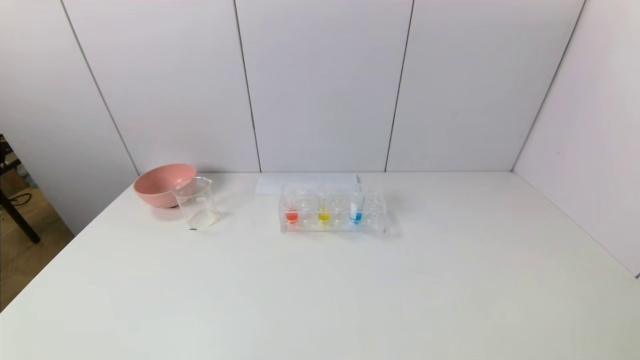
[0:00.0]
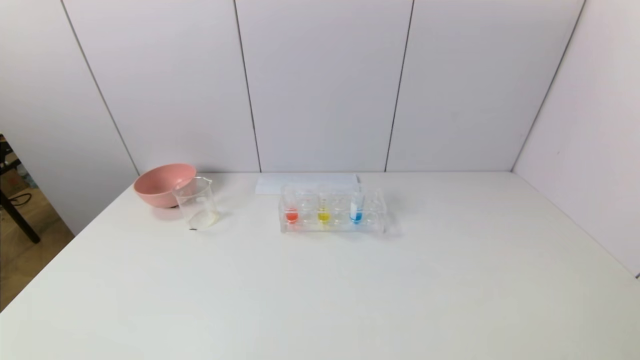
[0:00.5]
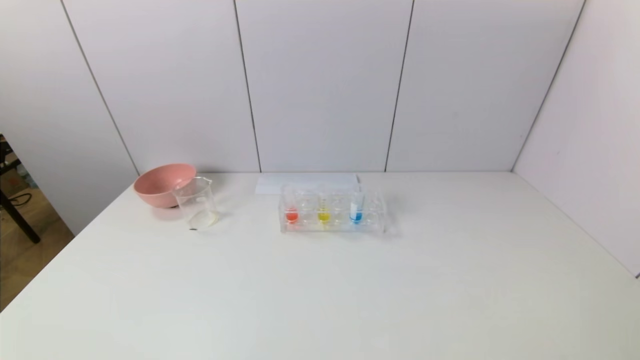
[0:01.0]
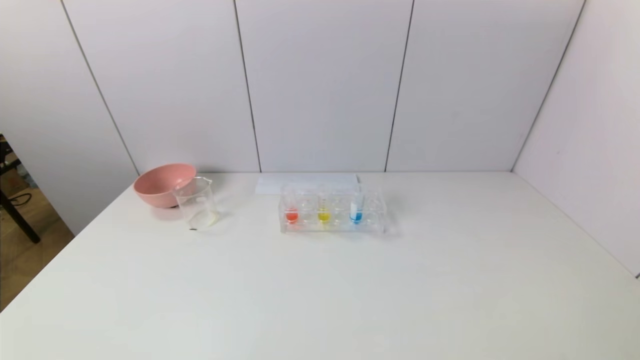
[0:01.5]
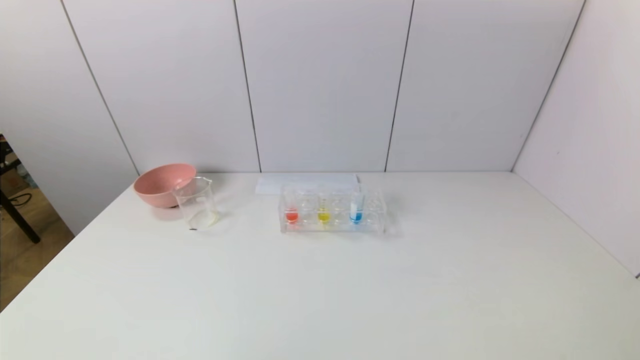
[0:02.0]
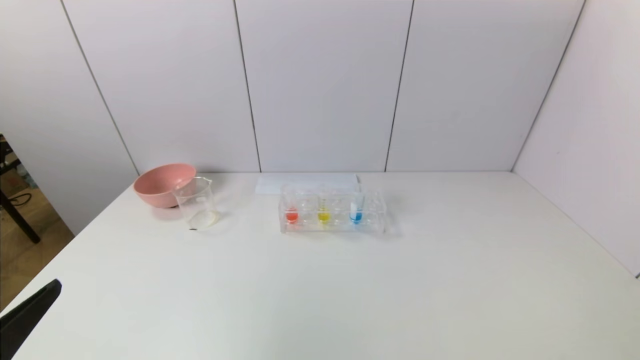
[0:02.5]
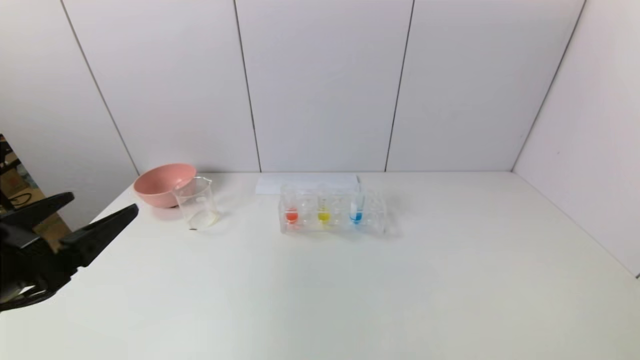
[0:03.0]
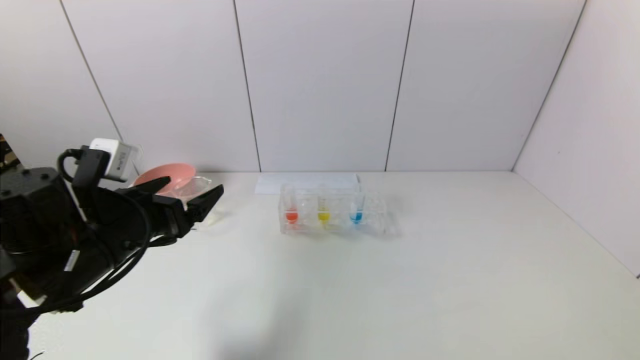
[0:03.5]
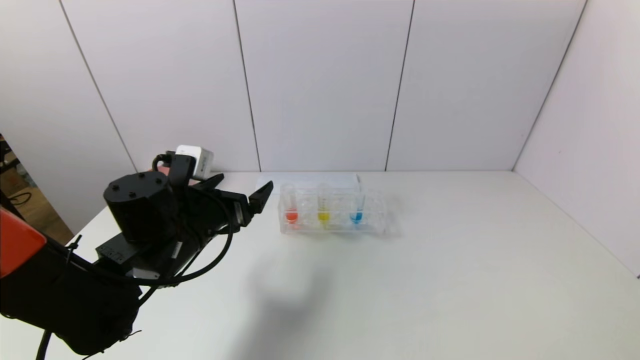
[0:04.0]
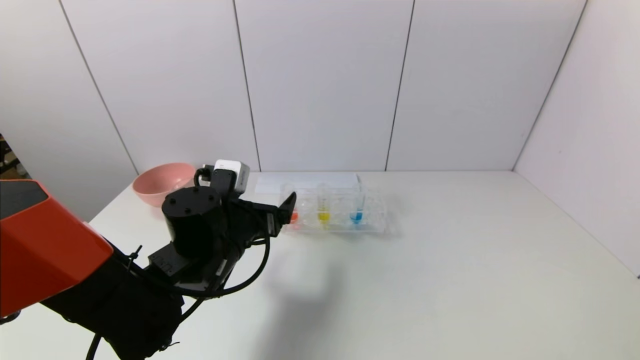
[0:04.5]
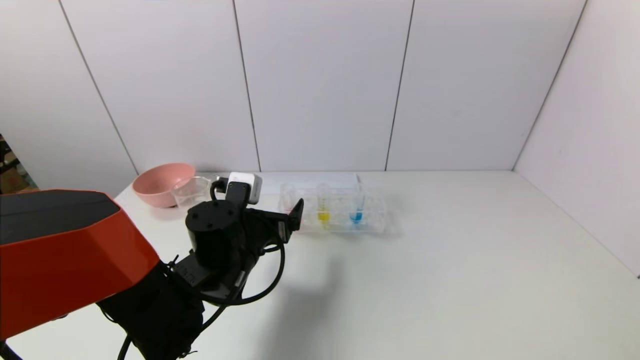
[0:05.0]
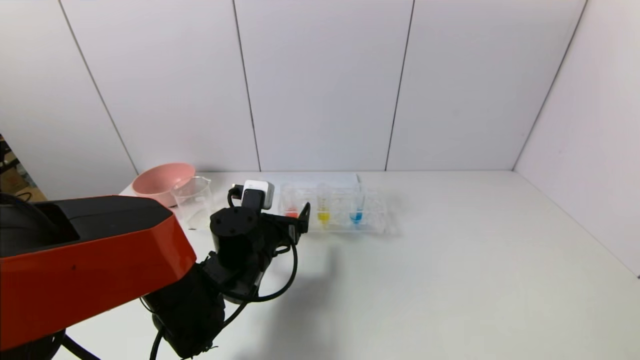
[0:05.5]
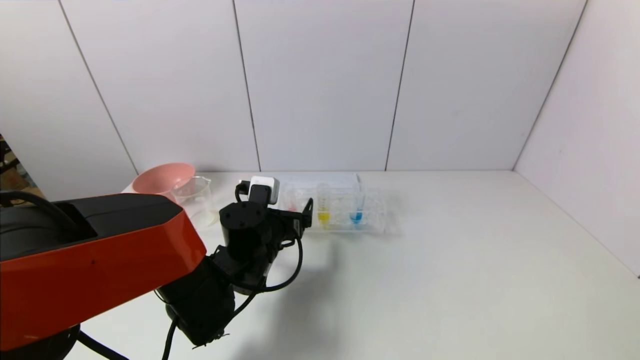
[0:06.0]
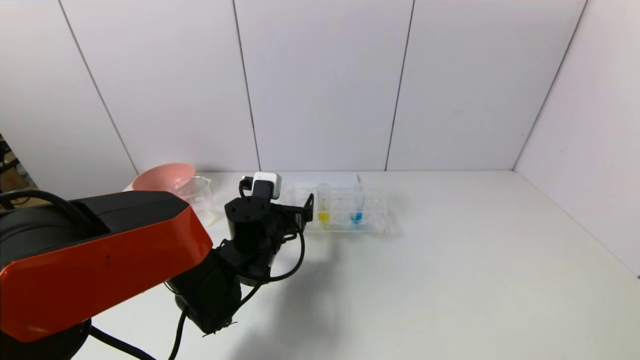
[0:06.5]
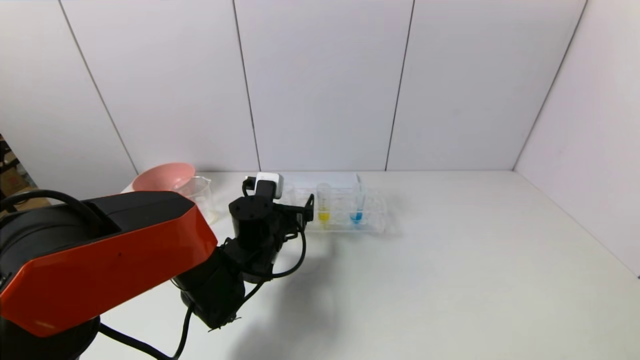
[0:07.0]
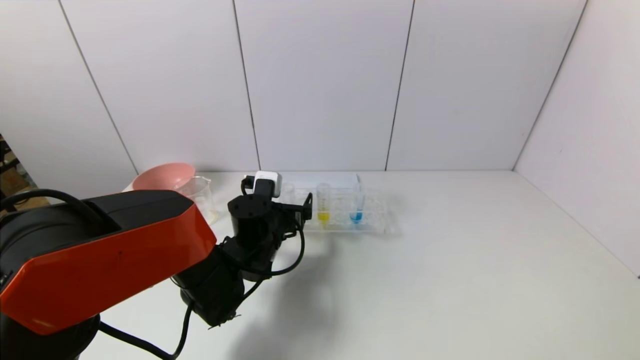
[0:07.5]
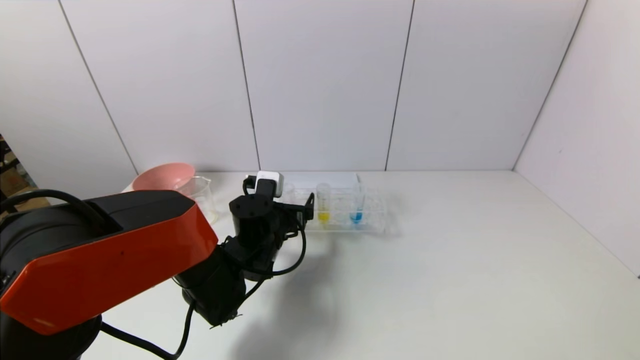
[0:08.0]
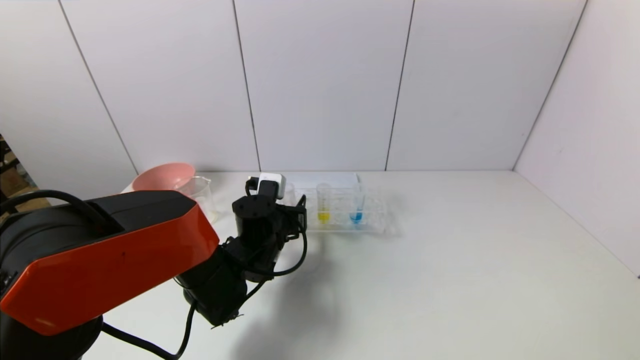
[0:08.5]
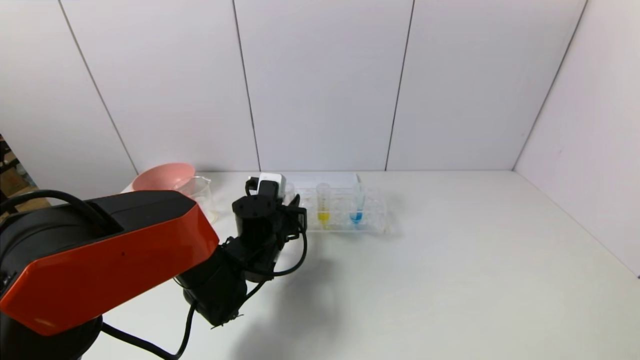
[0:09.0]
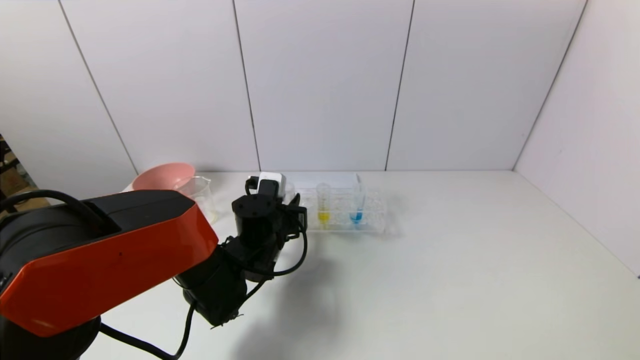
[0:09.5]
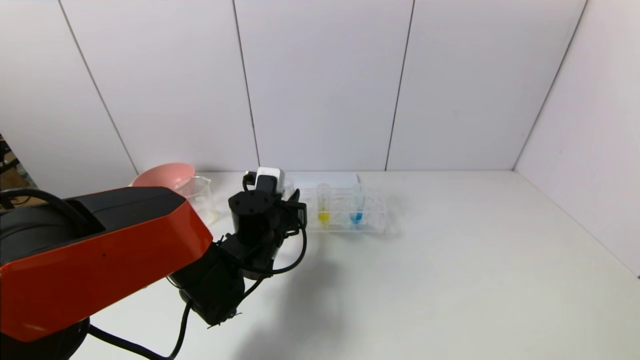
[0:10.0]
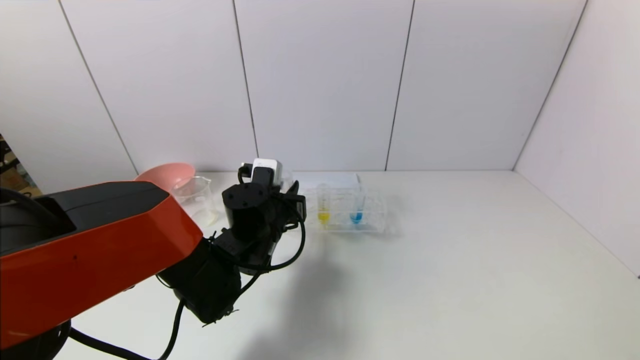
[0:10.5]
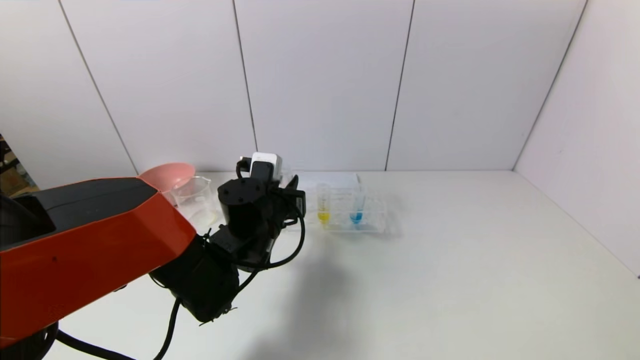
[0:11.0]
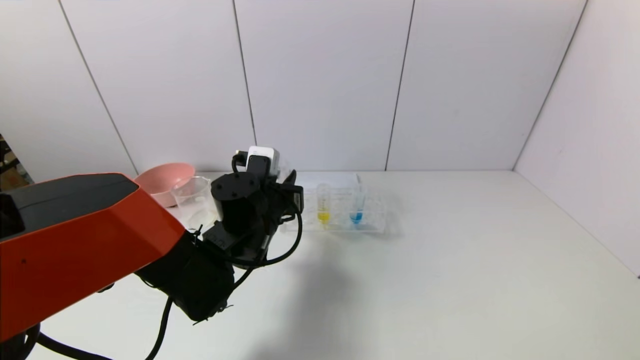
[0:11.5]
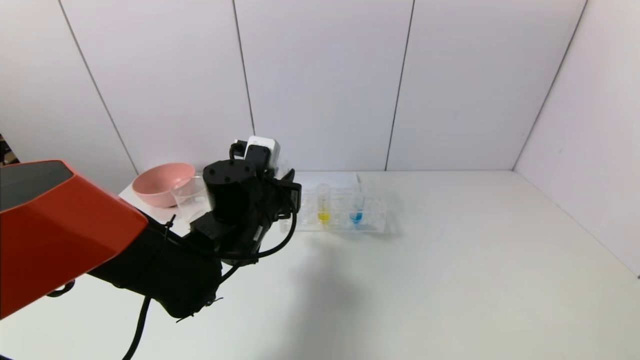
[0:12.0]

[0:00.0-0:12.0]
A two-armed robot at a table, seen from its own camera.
Task of the whole recording: pick up the test tube with yellow pigment and the test tube with red pigment by grippers and pour them into the beaker.
Step, 0:00.0 to 0:09.0: Grasp the red reagent with the left gripper.
0:02.0 to 0:04.0: The left gripper shifts approximately 30 cm forward and to the right.
0:04.0 to 0:06.0: The left gripper is displaced to the right and downward by some 10 cm.
0:06.0 to 0:08.0: The grippers make only small movements.
0:08.0 to 0:10.0: The left gripper closes up.
0:10.0 to 0:12.0: The left gripper moves upward, roughly 5 cm.

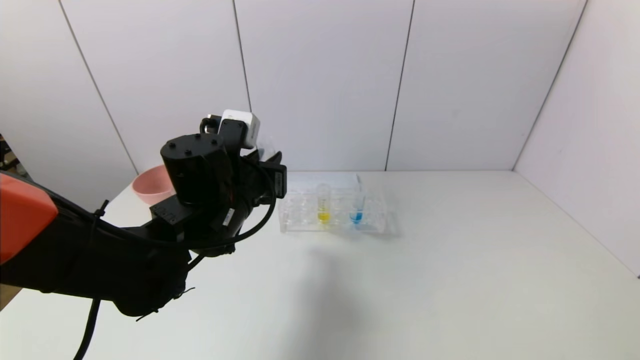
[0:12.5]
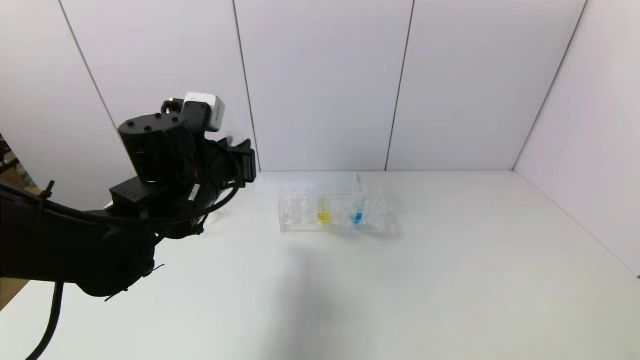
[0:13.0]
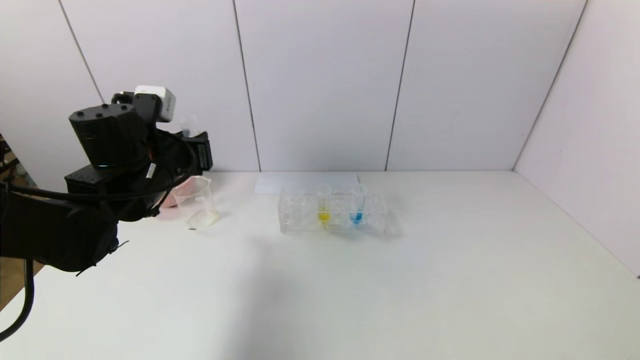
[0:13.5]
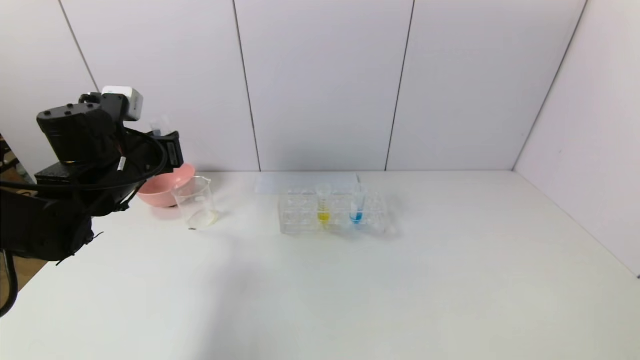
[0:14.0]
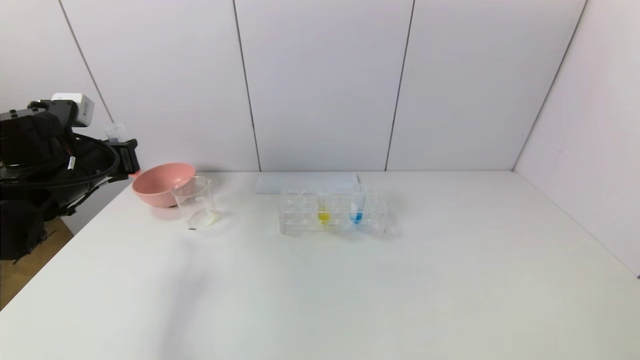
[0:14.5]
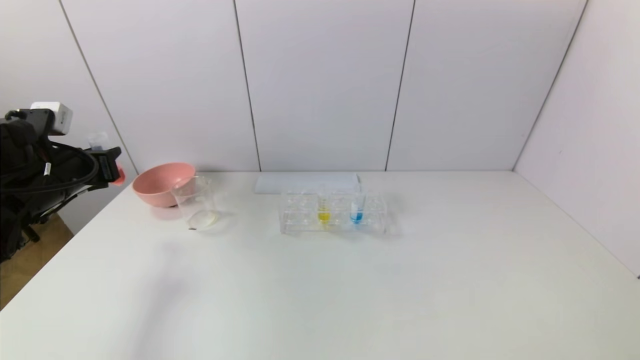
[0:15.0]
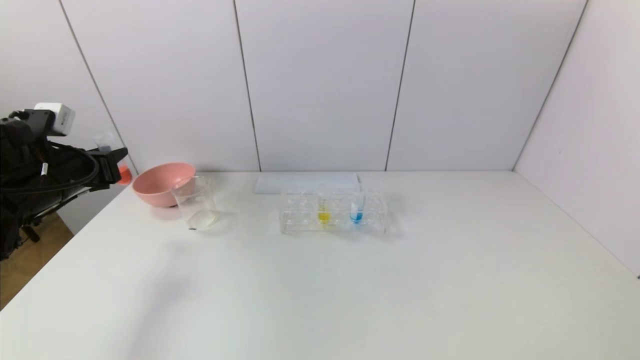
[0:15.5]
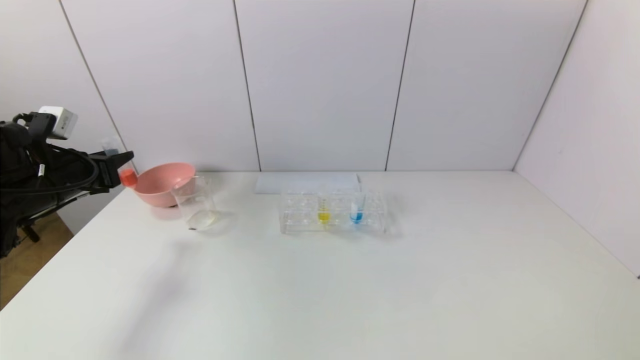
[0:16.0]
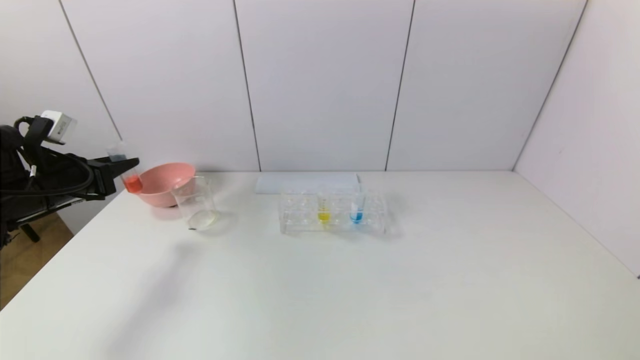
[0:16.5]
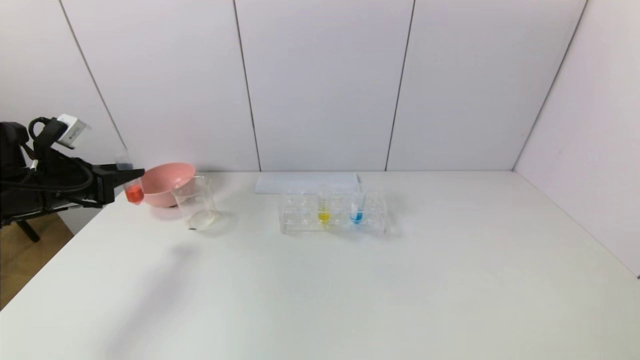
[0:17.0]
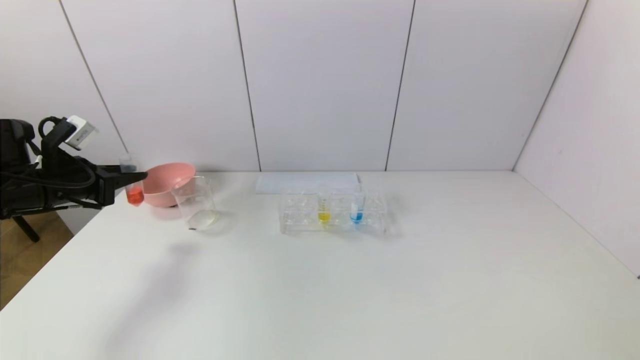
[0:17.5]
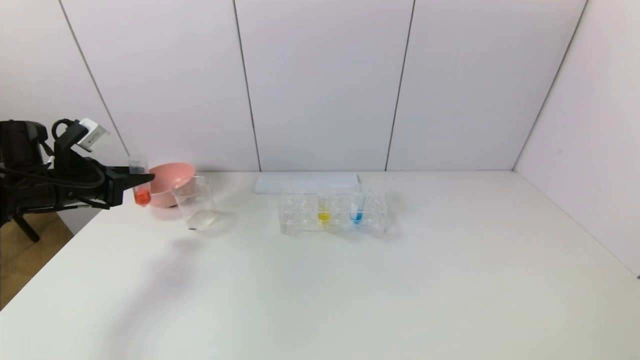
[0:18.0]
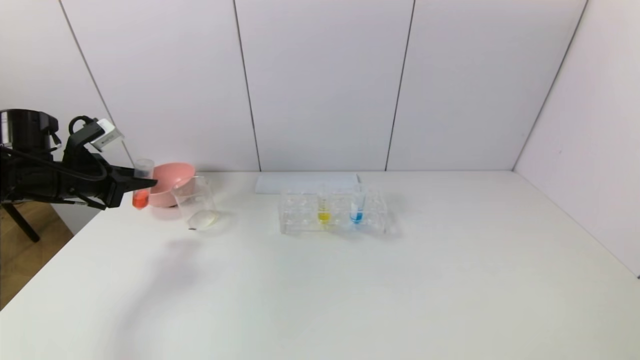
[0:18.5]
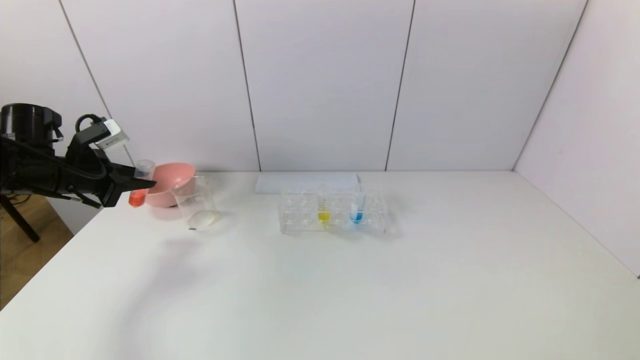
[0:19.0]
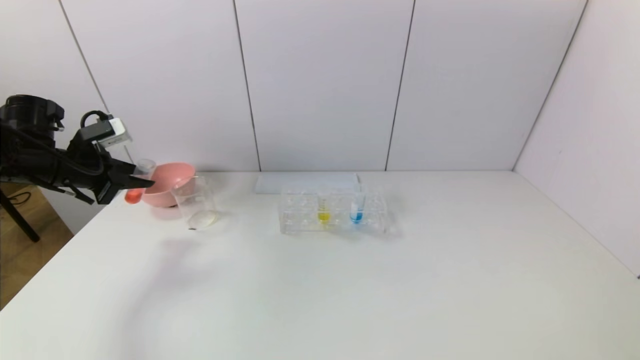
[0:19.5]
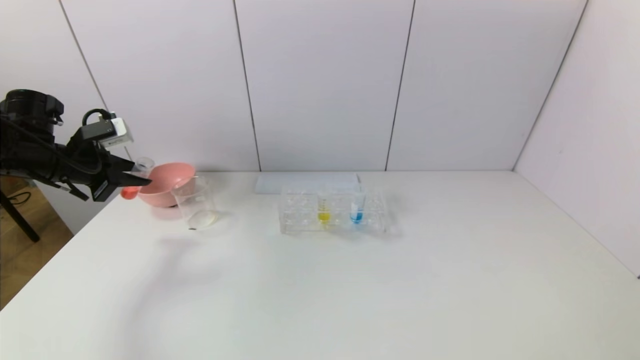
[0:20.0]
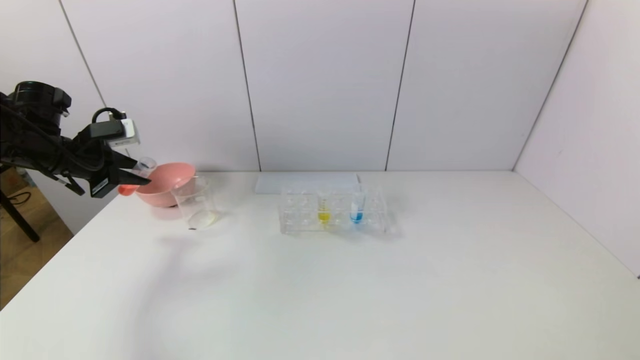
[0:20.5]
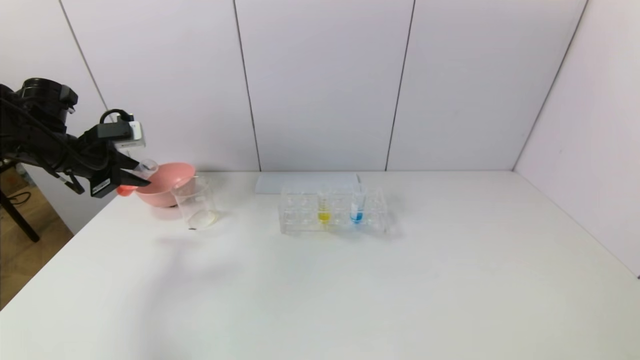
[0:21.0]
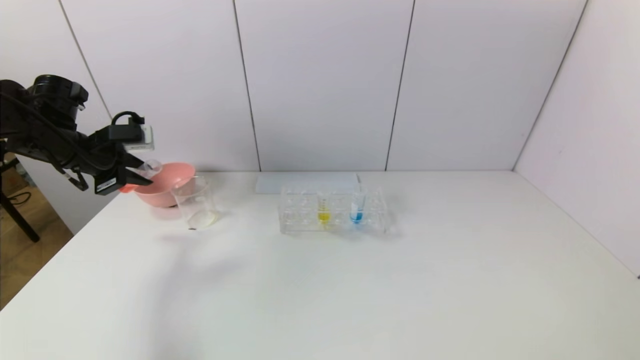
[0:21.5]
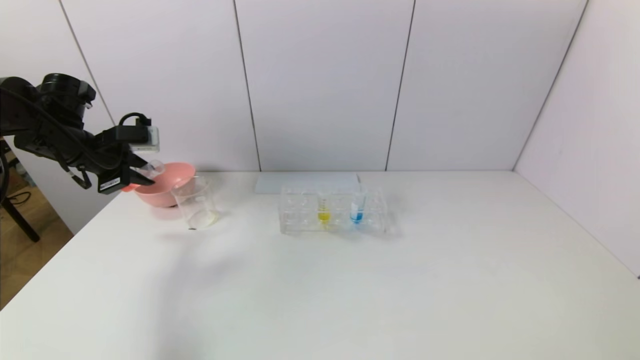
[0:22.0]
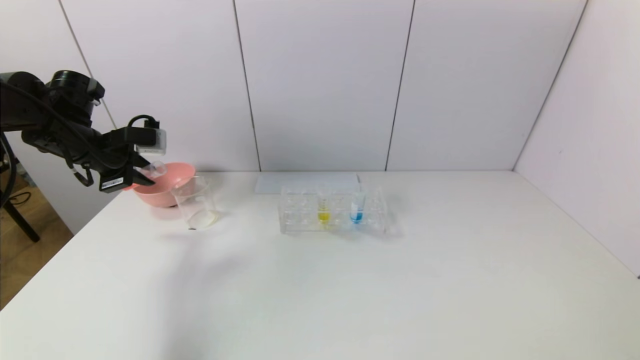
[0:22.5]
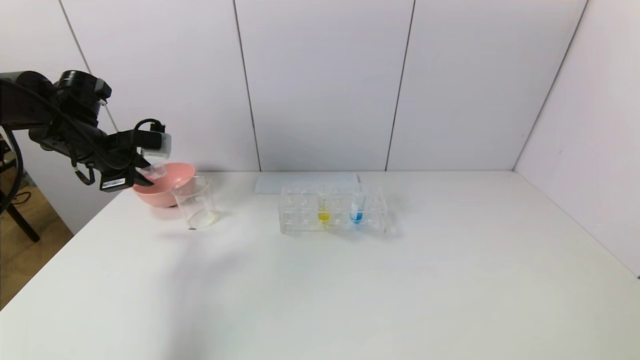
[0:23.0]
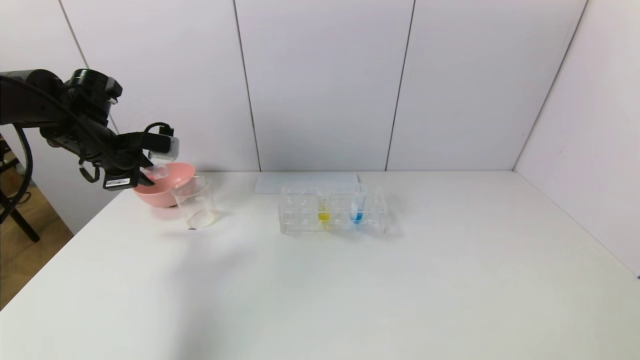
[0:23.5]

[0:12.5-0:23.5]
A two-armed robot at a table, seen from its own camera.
Task of the whole recording: pick up the test tube with yellow pigment and the test tube with red pigment by grippers and pour them into the beaker.
0:12.5 to 0:14.5: The left gripper is displaced to the left by roughly 20 cm.
0:14.5 to 0:16.0: The grippers move only a little.
0:20.0 to 0:21.5: The grippers move only a little.
0:21.5 to 0:23.5: The grippers stay close to where they were, moving slightly.
